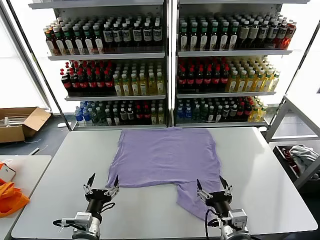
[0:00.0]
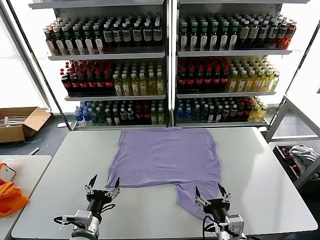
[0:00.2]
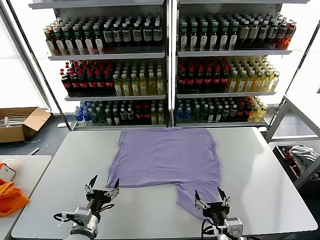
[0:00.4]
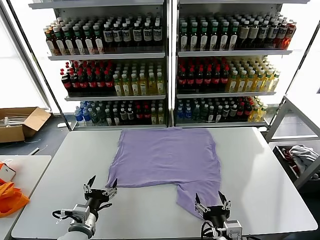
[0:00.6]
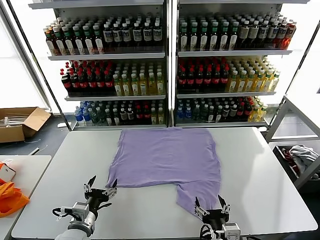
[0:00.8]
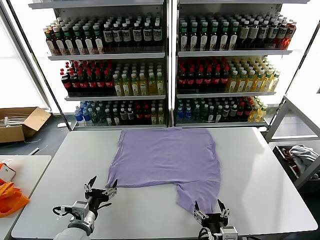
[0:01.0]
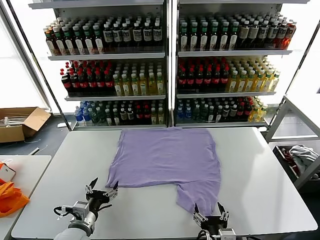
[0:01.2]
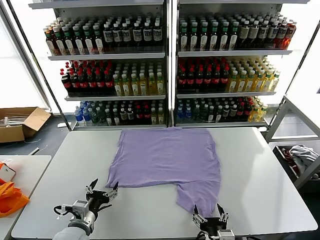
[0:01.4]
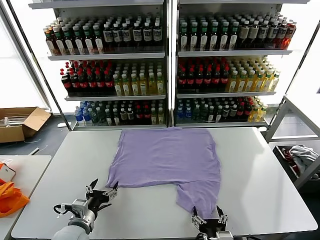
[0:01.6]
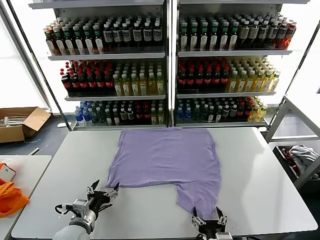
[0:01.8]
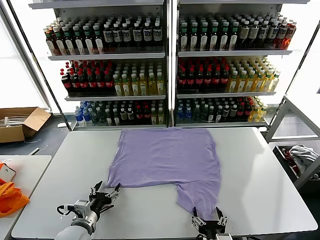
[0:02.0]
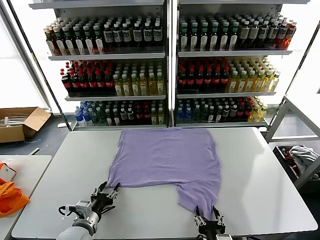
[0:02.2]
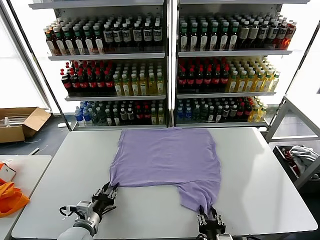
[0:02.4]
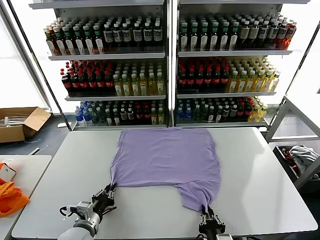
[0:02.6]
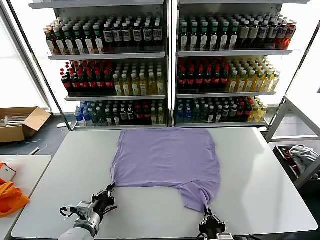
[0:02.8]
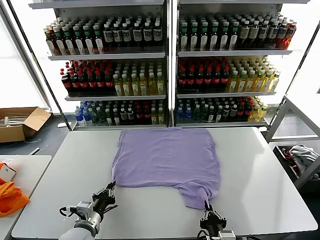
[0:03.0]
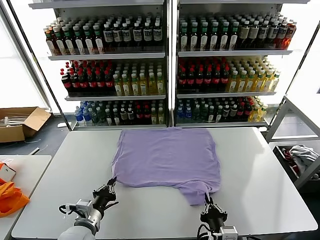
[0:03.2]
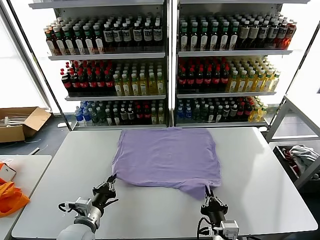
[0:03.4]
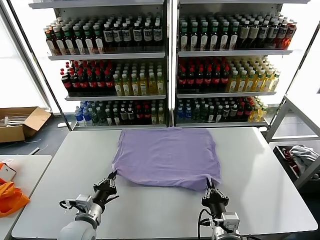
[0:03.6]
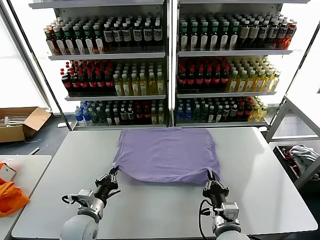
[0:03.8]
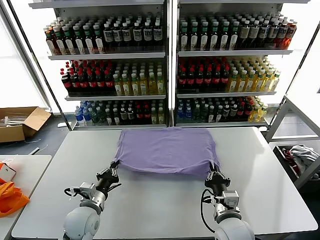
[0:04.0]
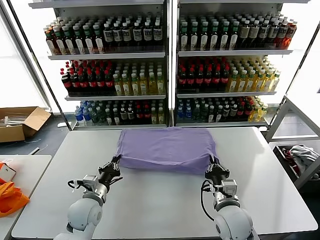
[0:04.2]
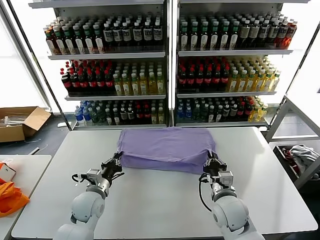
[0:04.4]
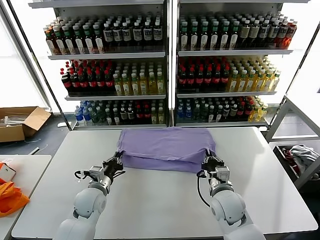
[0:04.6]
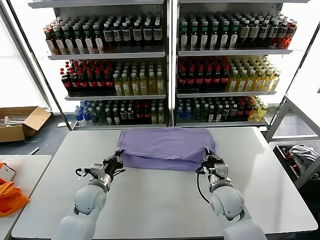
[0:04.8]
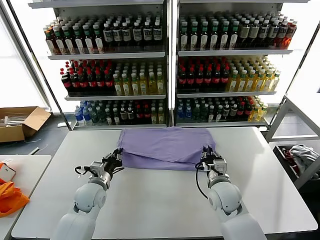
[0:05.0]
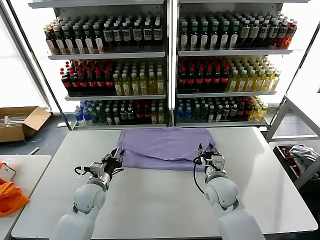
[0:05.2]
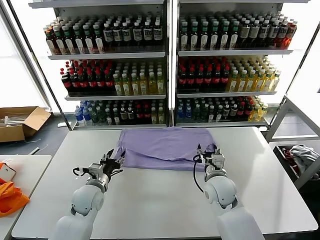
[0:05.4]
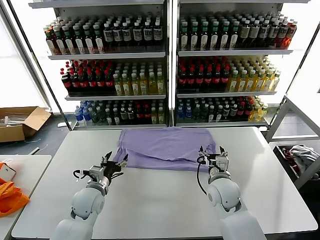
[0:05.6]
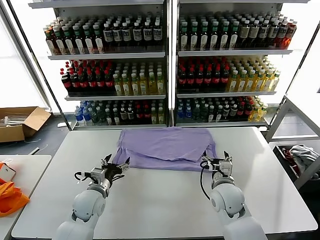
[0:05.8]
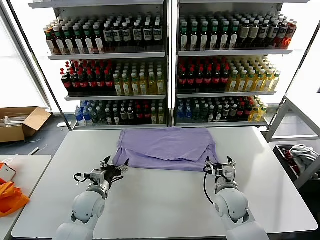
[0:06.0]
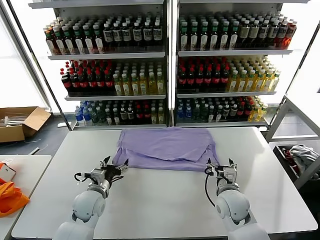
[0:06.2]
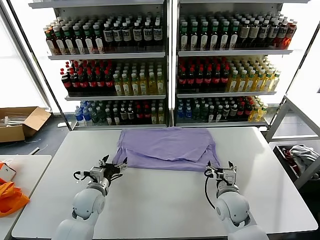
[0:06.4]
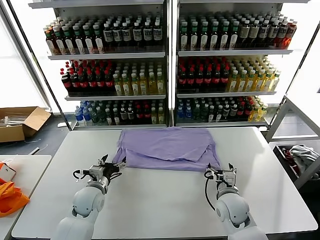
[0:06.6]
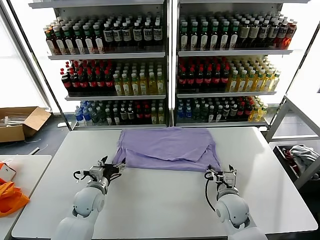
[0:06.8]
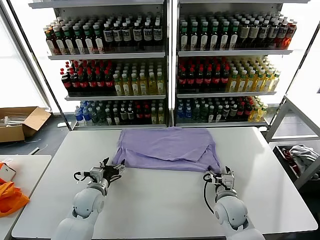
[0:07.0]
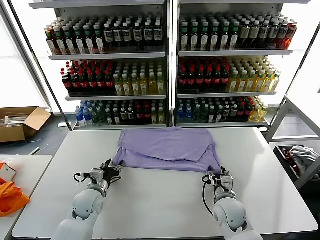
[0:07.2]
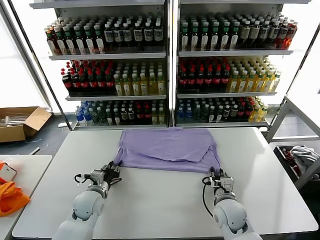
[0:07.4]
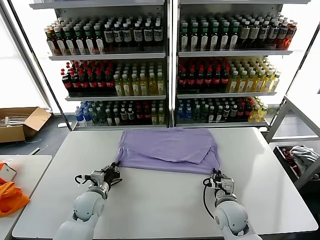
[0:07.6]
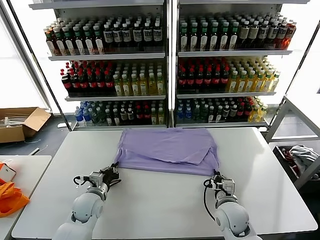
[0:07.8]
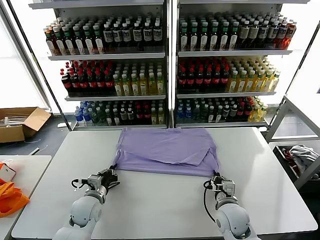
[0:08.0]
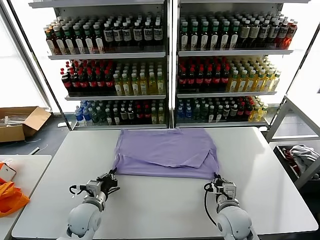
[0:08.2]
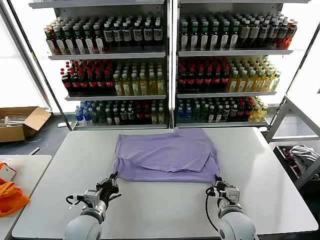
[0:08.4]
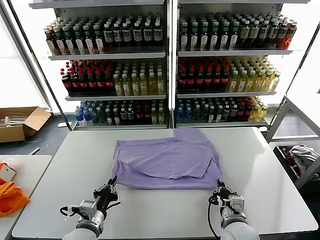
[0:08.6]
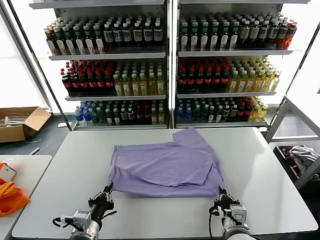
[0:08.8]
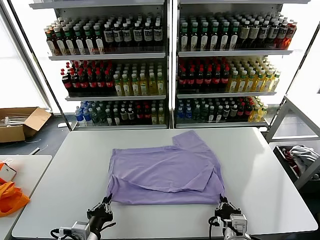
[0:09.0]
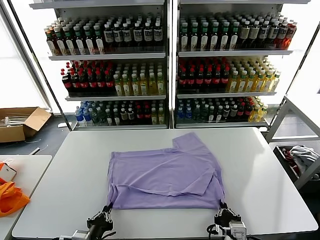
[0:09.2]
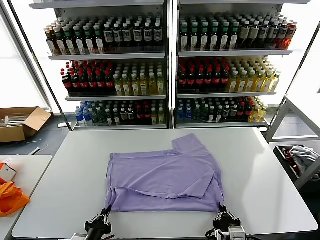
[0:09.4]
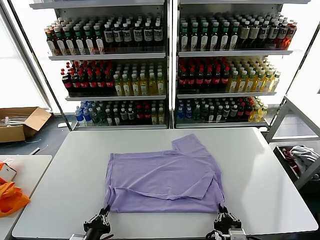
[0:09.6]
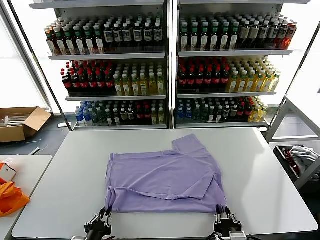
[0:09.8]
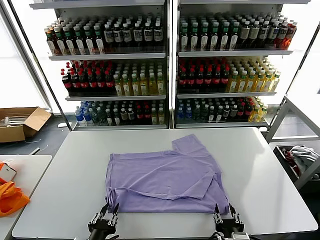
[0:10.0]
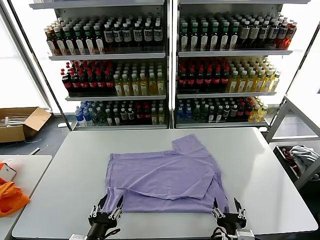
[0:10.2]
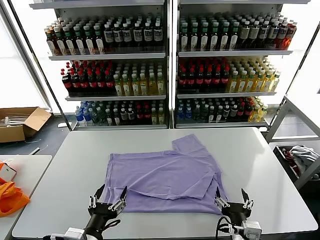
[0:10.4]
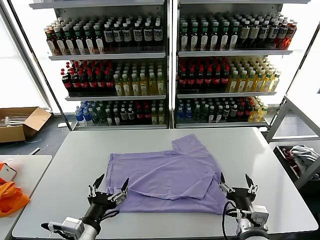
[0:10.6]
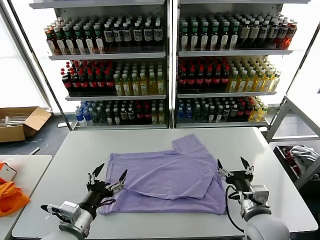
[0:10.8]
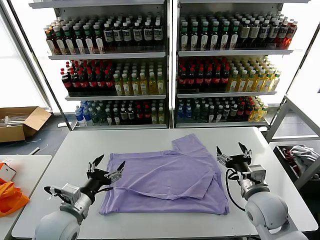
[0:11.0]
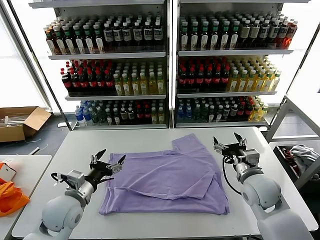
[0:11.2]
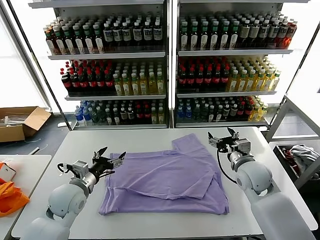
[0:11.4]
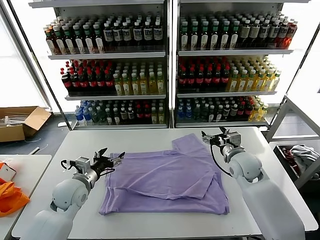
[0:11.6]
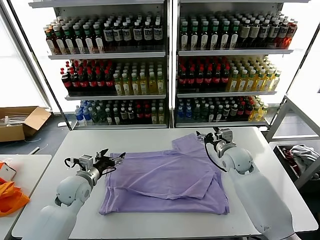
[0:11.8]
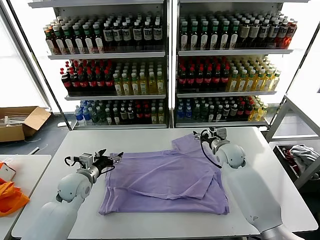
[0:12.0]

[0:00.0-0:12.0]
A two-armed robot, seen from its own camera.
Task of the whole recording: fold and organize the clothes.
Step, 0:00.0 to 0:03.0: use both grippers simultaneously to clamp the lower edge of the clothing fabric.
Step, 0:03.2 to 0:05.2: use both grippers to drag the lower edge of the fabric forward and fold it over the upper edge.
Step, 0:05.6 to 0:10.0: Drag the clothes downward with both gripper.
0:01.6 to 0:03.0: The right gripper closes. Meanwhile the left gripper closes up.
0:03.0 to 0:04.4: The right gripper heads forward, covering about 15 cm. The left gripper is displaced forward by about 10 cm.
0:04.4 to 0:06.0: The right gripper opens up, while the left gripper opens.
0:06.0 to 0:07.6: The right gripper closes up. The left gripper closes up.
0:07.6 to 0:09.0: Both grippers travel together backward, approximately 15 cm.
0:09.0 to 0:10.4: The right gripper opens up, while the left gripper shifts by approximately 5 cm, and opens.
0:10.4 to 0:12.0: Both grippers travel together forward, approximately 30 cm.

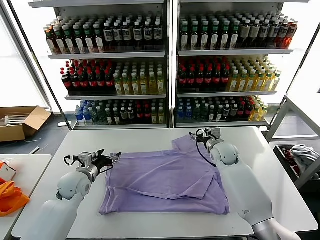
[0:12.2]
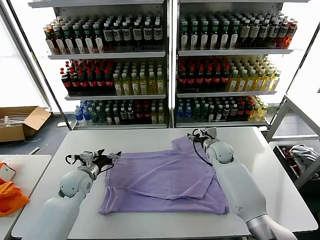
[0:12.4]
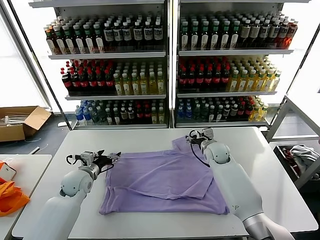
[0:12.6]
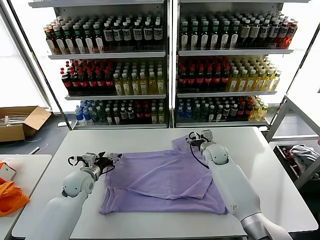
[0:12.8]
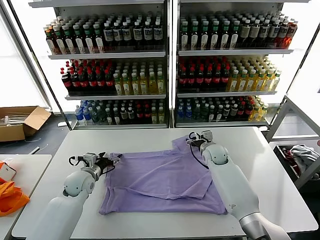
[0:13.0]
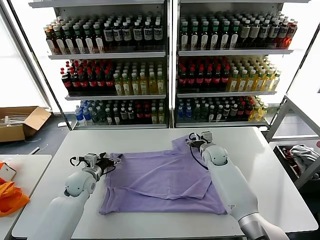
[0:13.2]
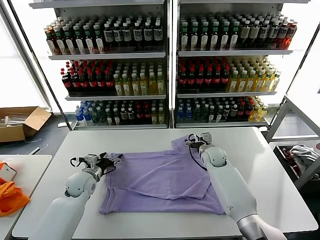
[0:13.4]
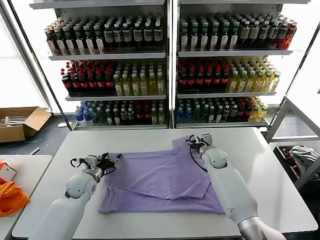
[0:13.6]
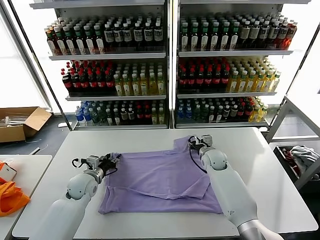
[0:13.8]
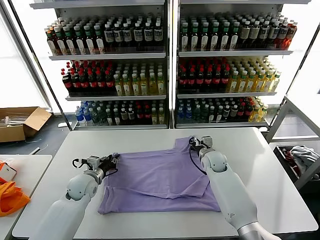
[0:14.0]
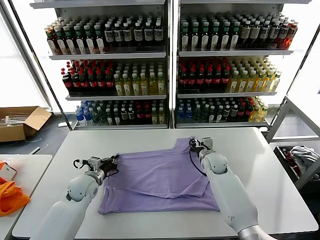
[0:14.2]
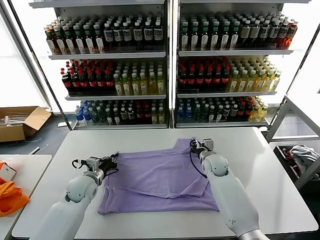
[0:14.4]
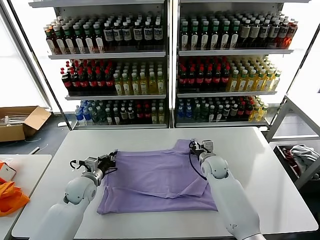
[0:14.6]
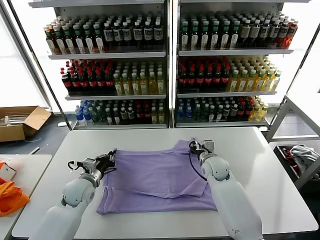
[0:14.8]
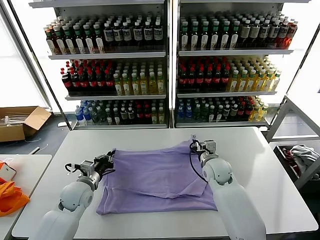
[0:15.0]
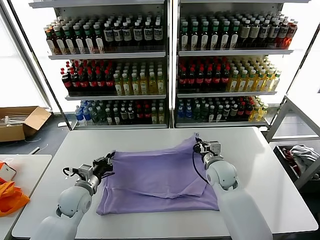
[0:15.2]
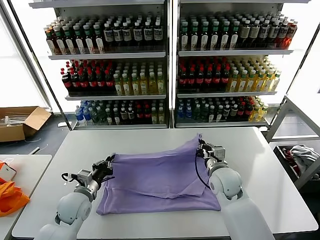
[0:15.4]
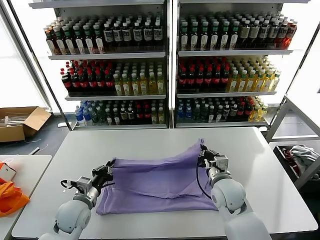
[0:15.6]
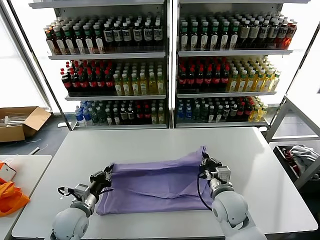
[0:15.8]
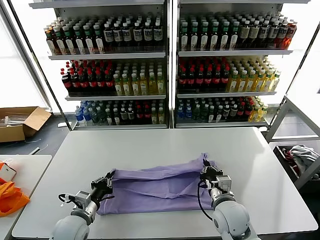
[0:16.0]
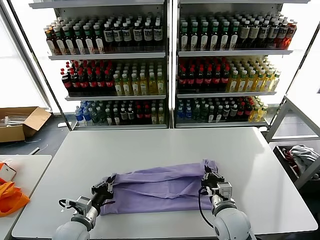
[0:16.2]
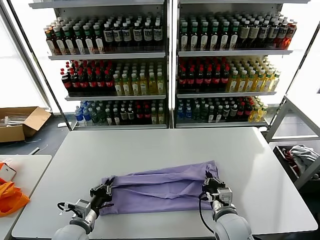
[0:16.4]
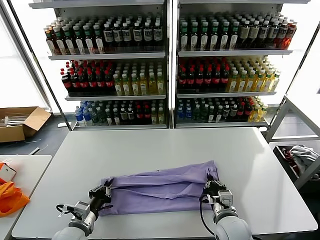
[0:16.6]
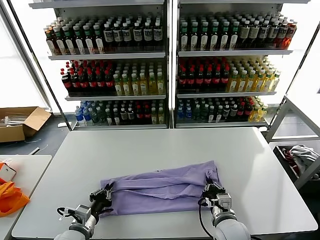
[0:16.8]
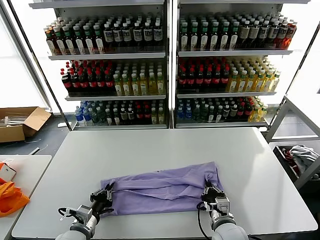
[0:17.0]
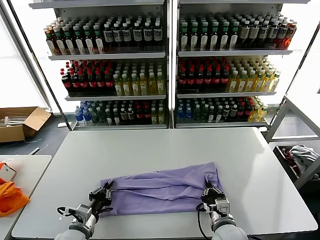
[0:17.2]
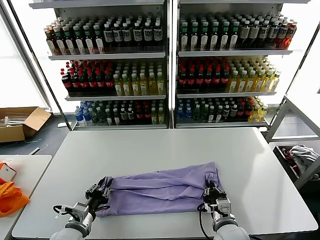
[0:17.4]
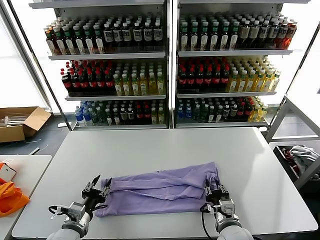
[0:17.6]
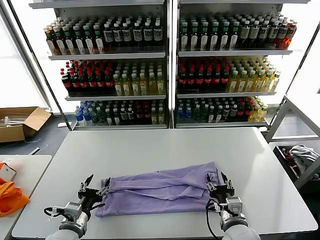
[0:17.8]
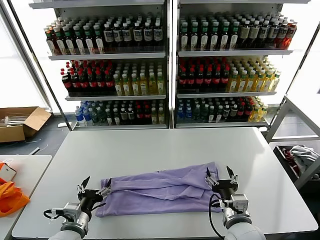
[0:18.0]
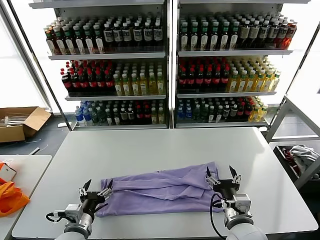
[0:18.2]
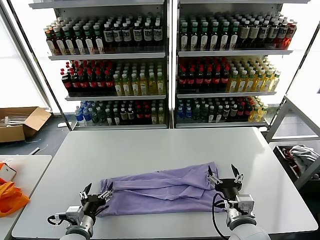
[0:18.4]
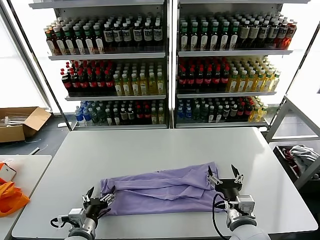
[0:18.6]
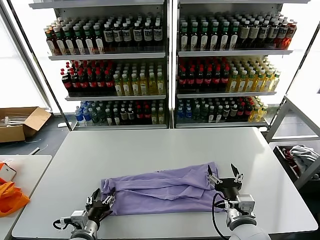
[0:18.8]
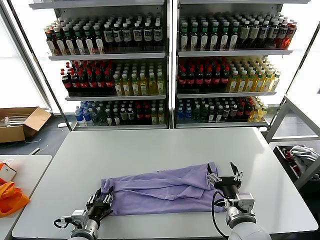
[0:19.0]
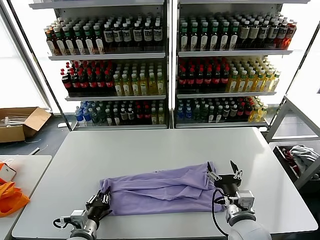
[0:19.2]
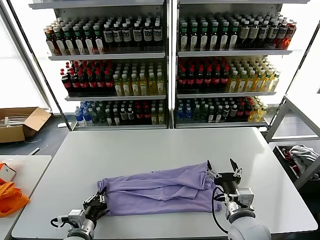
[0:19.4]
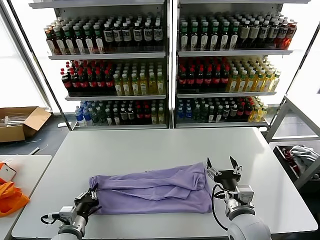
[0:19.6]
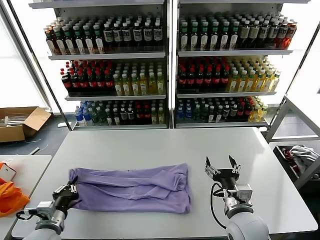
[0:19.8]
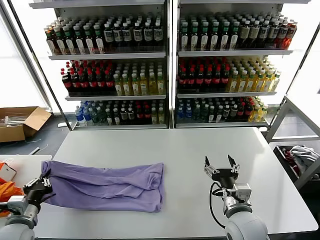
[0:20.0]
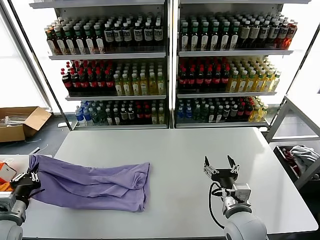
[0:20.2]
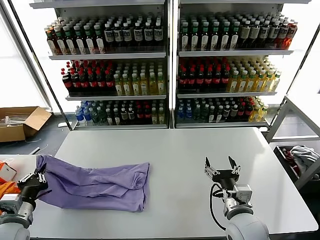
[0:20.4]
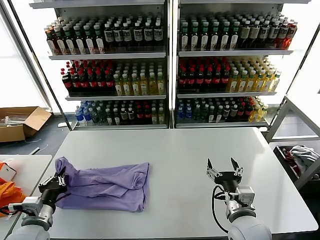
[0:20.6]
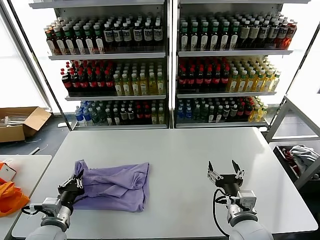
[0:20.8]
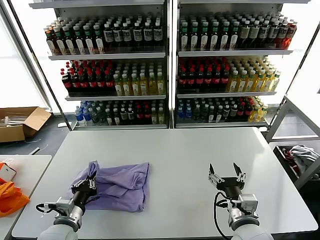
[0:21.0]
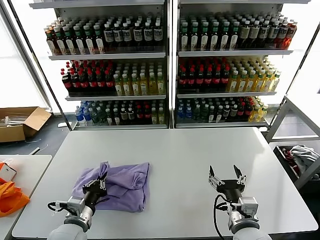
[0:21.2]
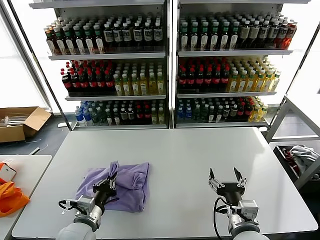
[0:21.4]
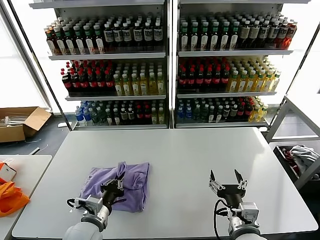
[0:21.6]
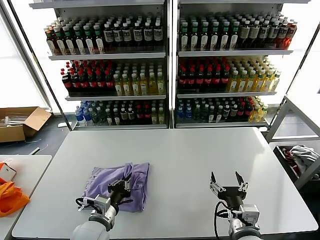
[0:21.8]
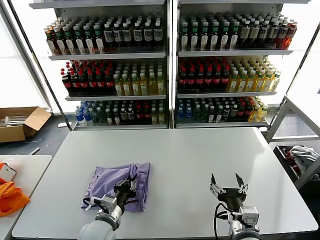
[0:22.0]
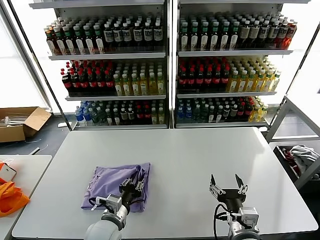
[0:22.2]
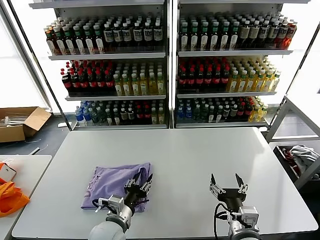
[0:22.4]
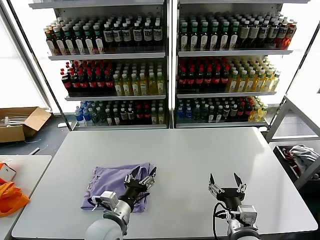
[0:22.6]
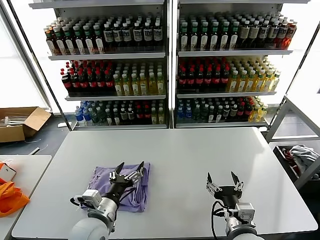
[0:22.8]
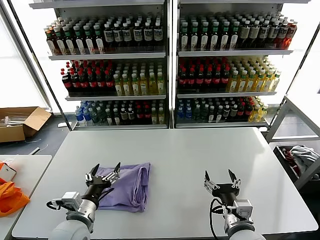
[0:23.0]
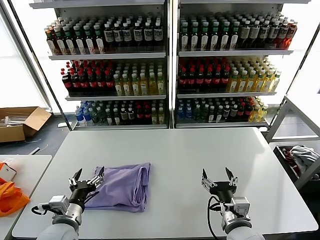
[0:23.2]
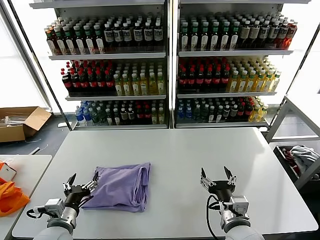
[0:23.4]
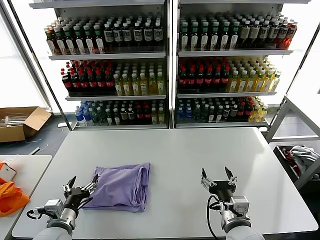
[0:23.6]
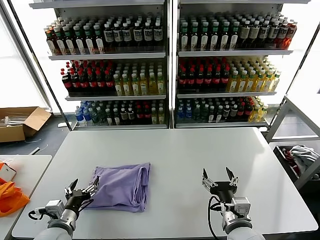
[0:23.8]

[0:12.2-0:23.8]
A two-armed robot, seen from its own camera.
Task of the whole recording: fold and organize the clothes.
Step, 0:12.2 to 0:14.2: use both grippers simultaneously to clamp the upper edge of the clothing fabric.
Step, 0:14.4 to 0:17.6: use both grippers to drag the upper edge of the fabric backward and fold it over the lower edge.
Step, 0:17.8 to 0:19.4: use the left gripper to clamp the left edge of the fabric.
Step, 0:19.6 to 0:22.4: use the left gripper to drag the left edge of the fabric to the left and folds it over the right edge.
0:12.2 to 0:13.6: The right gripper is displaced downward by roughly 5 cm.
0:13.6 to 0:15.0: The right gripper goes approximately 10 cm backward, and closes; the left gripper closes its fingers.
0:15.0 to 0:16.6: The grippers both shift backward by roughly 15 cm.
0:16.6 to 0:18.0: The right gripper ends up approximately 5 cm from where it was, and opens; the left gripper opens.
0:18.0 to 0:19.4: The left gripper closes.
0:19.4 to 0:21.0: The left gripper travels upward by roughly 5 cm, and travels to the left and back again, about 15 cm each way.
0:21.0 to 0:22.4: The left gripper heads to the right, covering roughly 15 cm, and opens its fingers.
0:22.4 to 0:23.8: The left gripper shifts some 15 cm to the left, and opens up.
